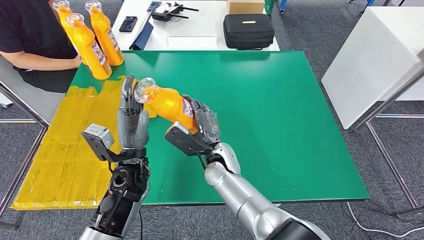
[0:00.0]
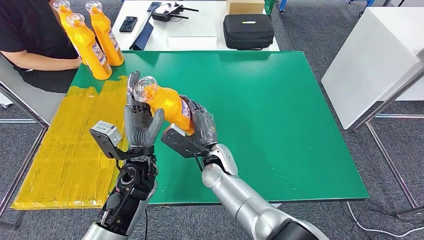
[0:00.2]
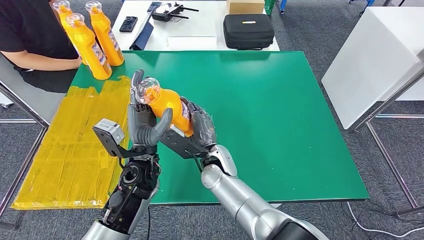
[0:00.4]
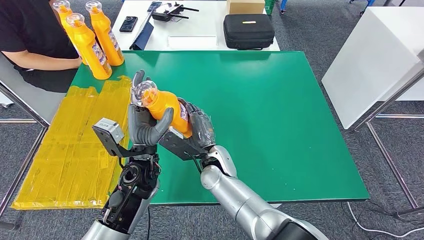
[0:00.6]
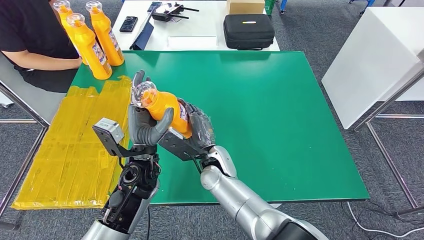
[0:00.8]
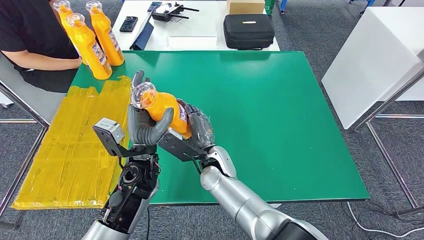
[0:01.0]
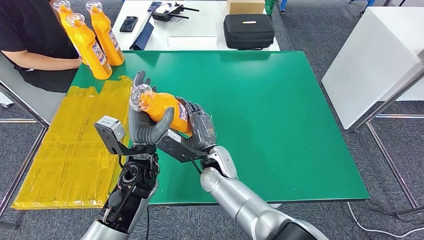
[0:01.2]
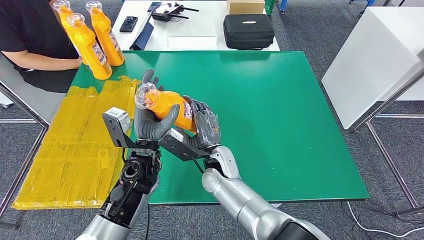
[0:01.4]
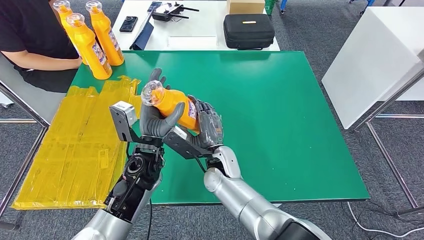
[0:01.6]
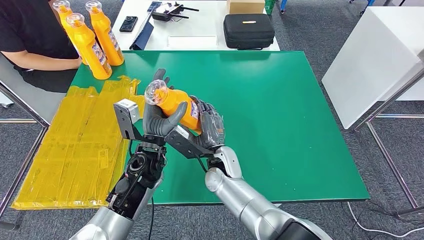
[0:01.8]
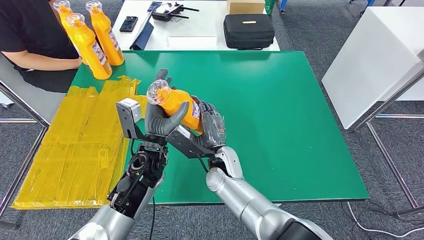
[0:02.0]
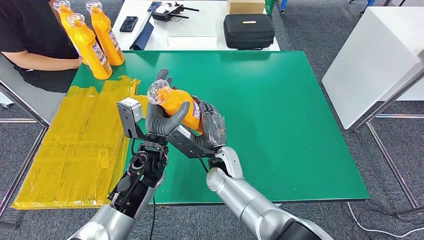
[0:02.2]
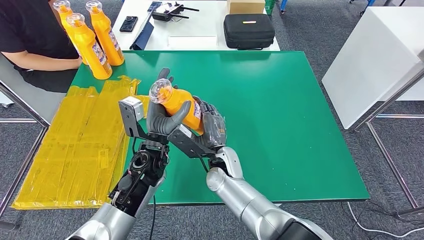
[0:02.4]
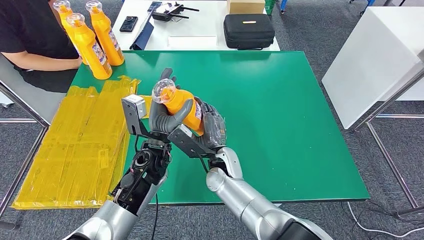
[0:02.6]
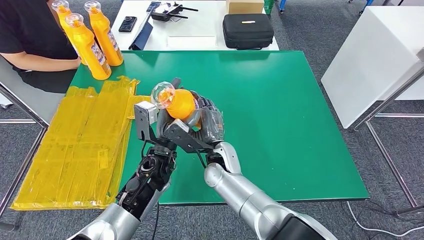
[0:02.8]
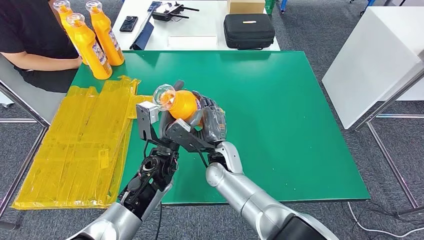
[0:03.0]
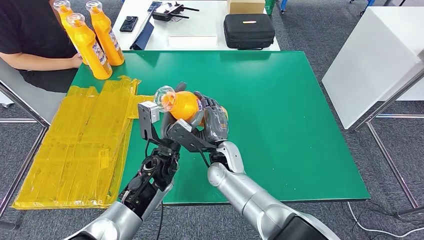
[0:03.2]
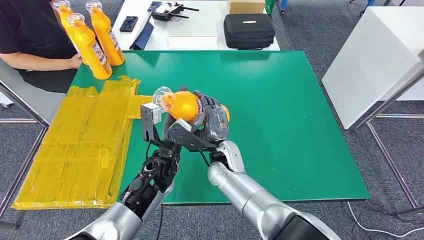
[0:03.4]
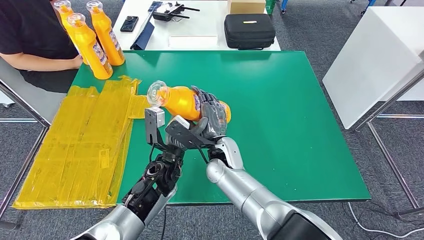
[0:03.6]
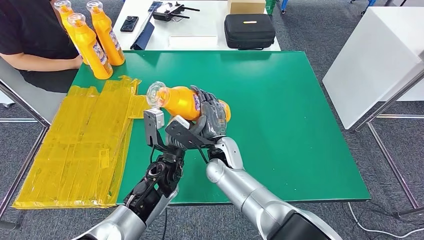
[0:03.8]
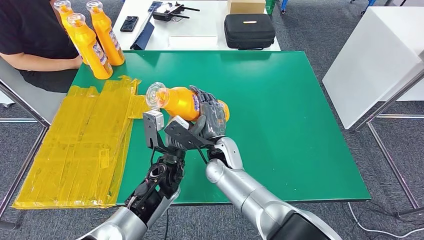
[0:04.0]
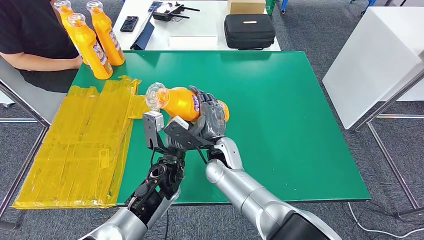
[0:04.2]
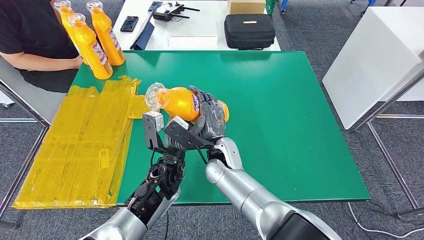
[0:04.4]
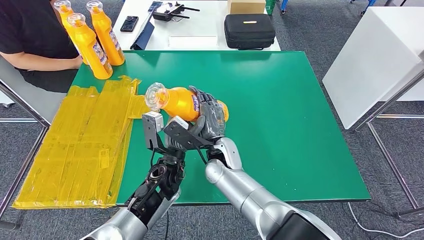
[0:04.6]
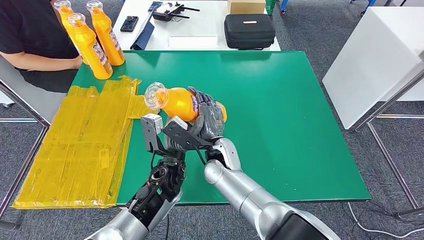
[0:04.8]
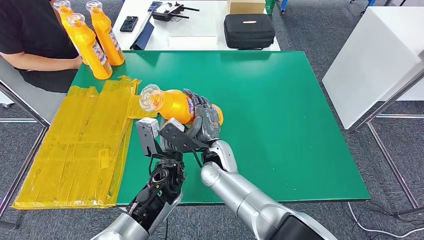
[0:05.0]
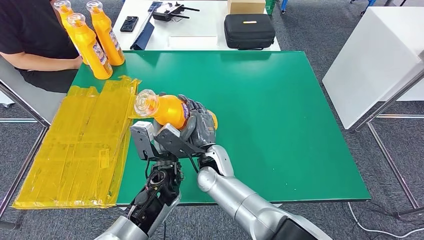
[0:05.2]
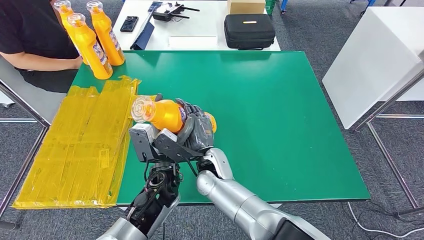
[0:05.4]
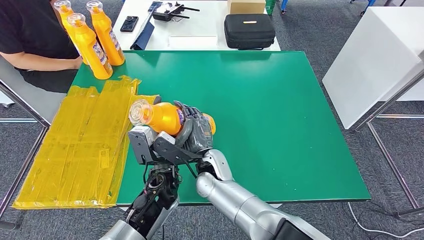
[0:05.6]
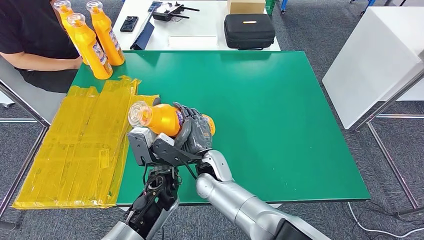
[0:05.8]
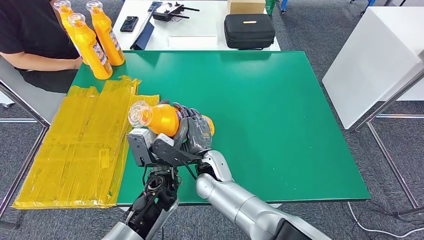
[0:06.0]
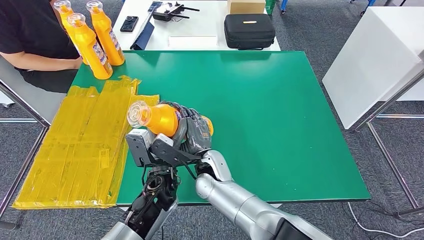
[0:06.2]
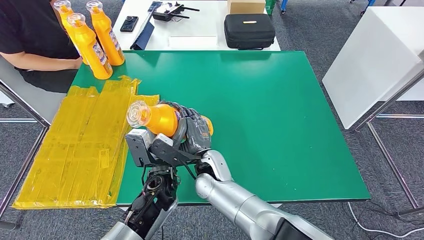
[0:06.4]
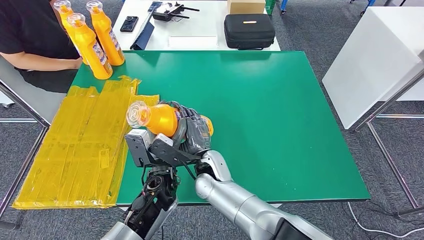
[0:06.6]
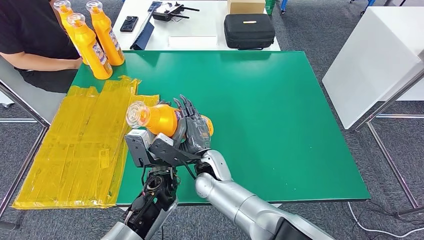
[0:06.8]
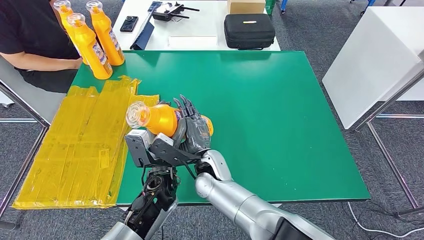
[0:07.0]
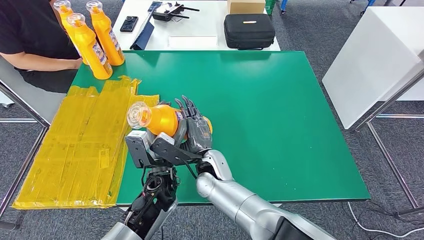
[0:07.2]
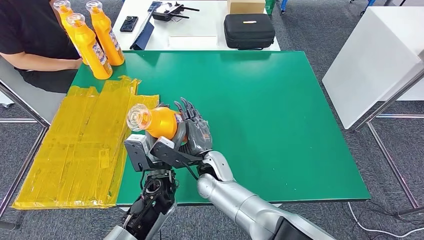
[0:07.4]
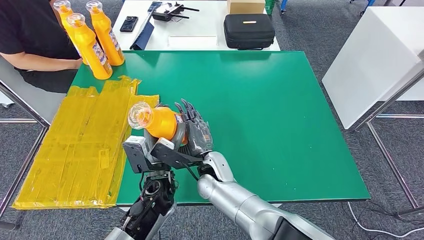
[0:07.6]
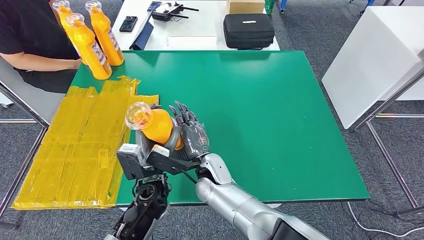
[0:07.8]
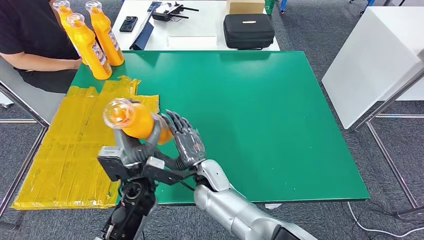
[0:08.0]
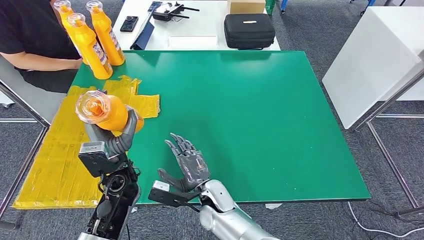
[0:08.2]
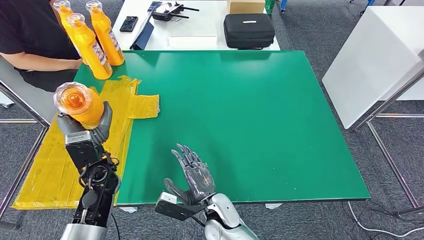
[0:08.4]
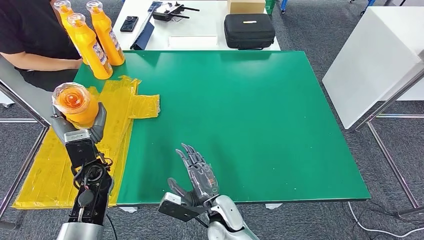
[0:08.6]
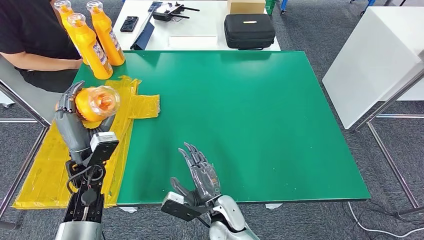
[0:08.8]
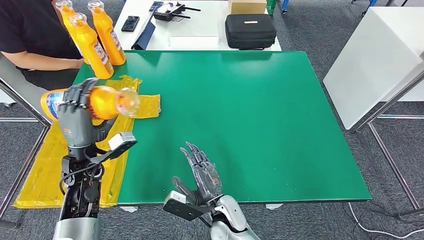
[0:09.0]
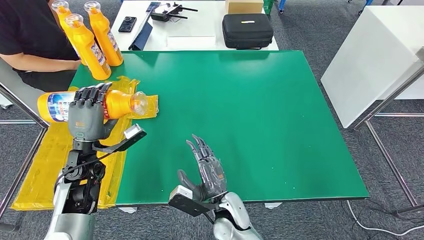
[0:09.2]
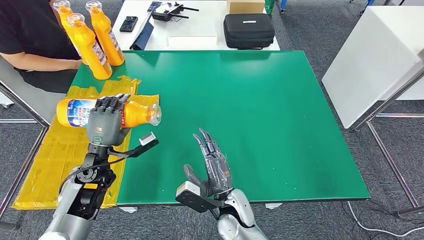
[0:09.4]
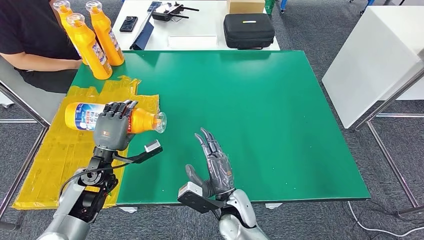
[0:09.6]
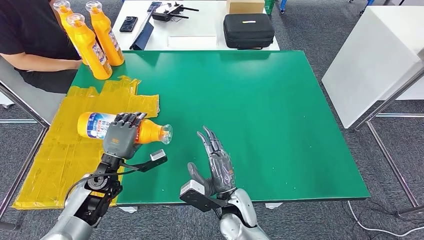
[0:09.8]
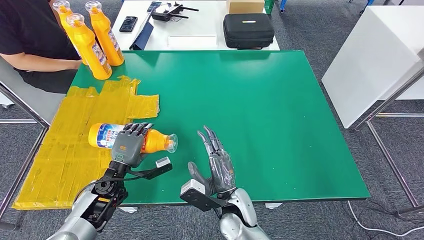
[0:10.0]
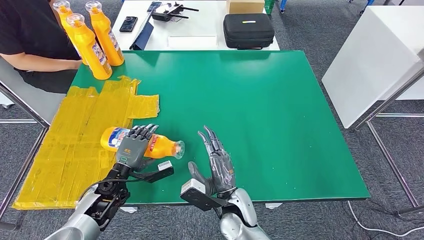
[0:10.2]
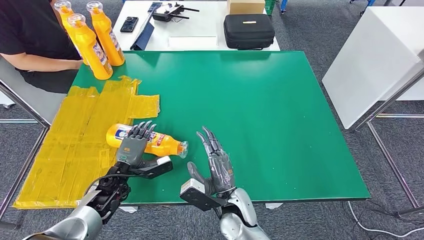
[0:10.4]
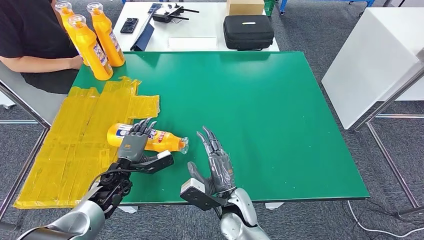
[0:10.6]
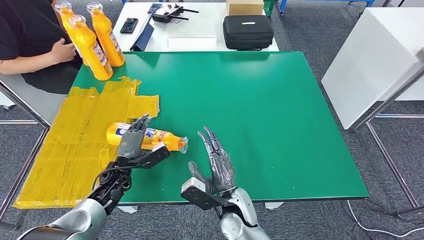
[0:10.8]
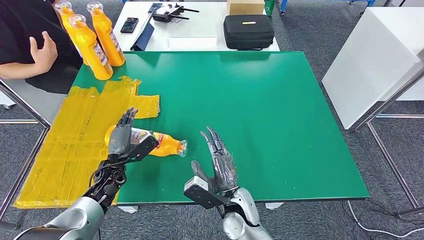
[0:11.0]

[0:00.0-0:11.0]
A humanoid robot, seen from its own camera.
Step, 0:00.0 to 0:11.0: Flip the fast-moving consumer goods bottle to the front side.
0:00.0 to 0:01.6: The hands stay close to where they were, moving slightly.
0:01.6 to 0:03.2: There are only small adjustments of the hands.
0:03.2 to 0:04.8: There are only small adjustments of the hands.
0:04.8 to 0:06.2: The hands stay close to where they were, moving slightly.
0:06.2 to 0:07.8: The hands make only small movements.
0:07.8 to 0:09.4: The right hand moves backward and to the right, roughly 10 cm. Meanwhile the left hand goes roughly 15 cm to the left.
0:09.4 to 0:11.0: The left hand heads downward, covering roughly 10 cm.

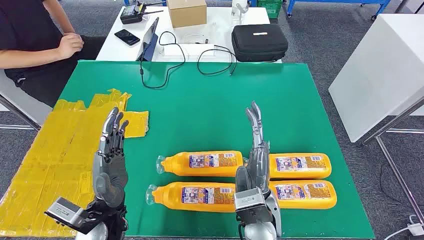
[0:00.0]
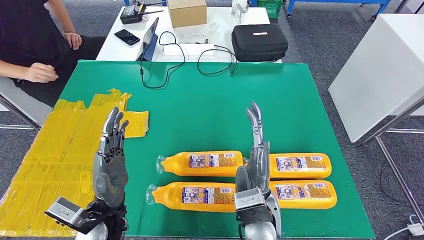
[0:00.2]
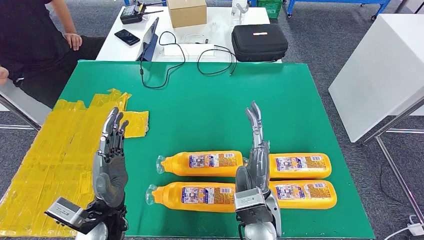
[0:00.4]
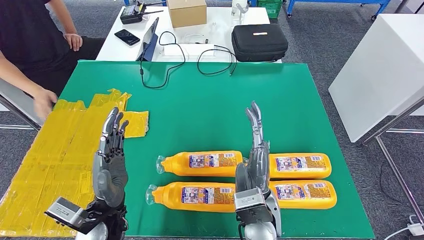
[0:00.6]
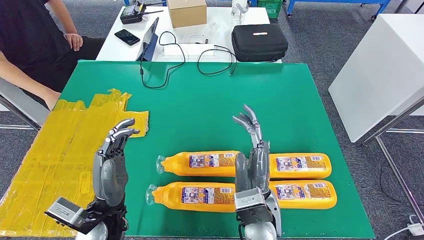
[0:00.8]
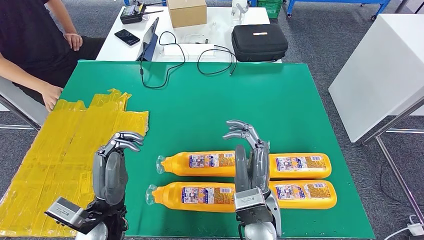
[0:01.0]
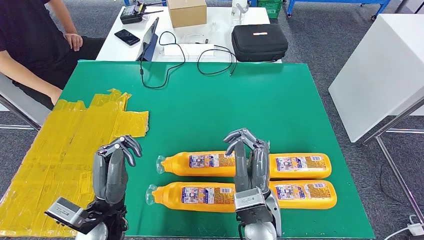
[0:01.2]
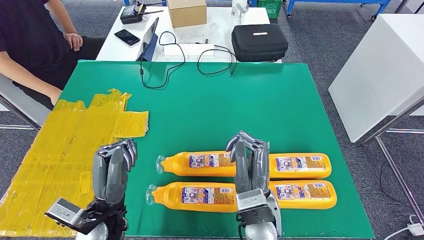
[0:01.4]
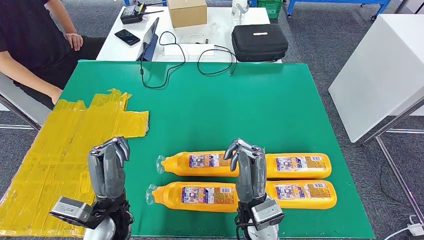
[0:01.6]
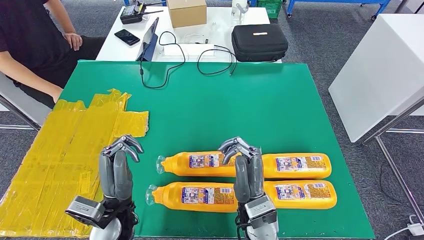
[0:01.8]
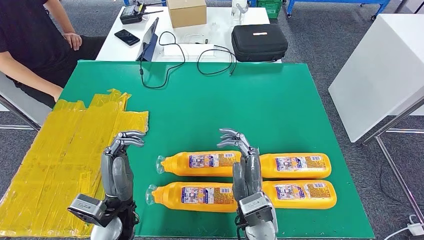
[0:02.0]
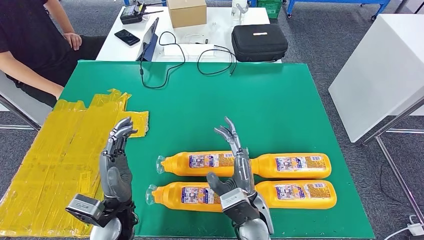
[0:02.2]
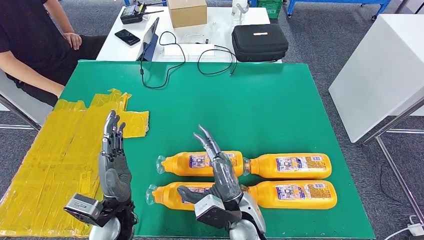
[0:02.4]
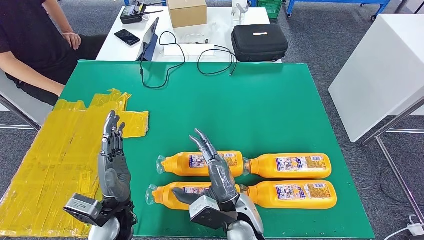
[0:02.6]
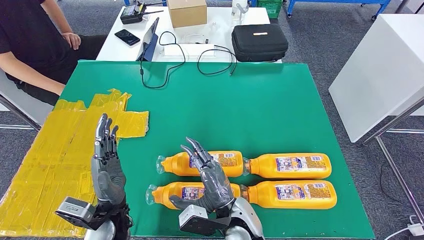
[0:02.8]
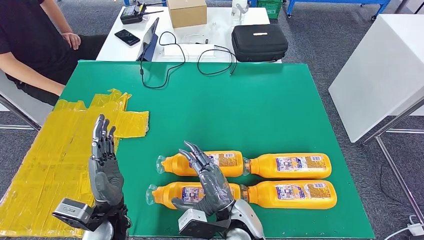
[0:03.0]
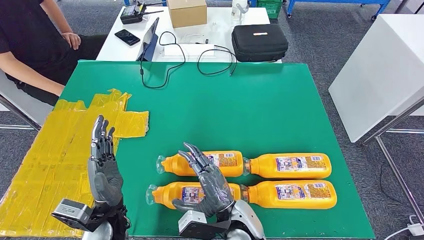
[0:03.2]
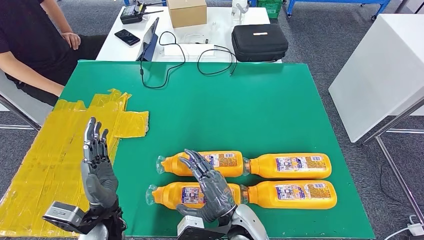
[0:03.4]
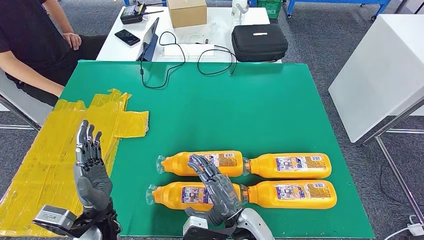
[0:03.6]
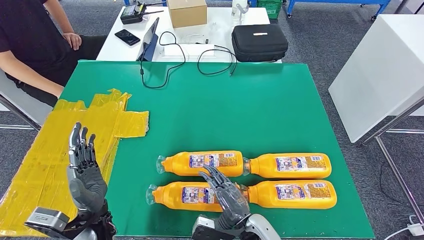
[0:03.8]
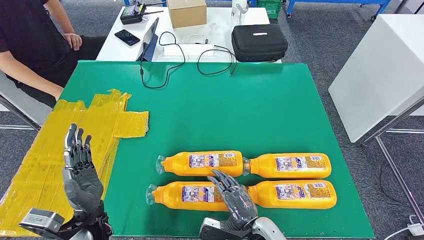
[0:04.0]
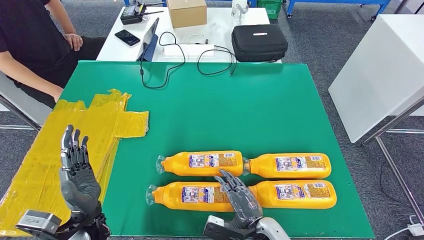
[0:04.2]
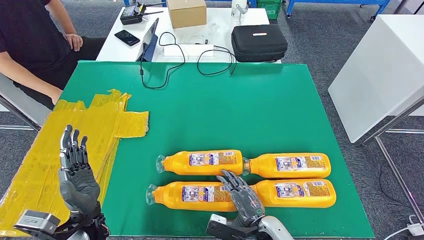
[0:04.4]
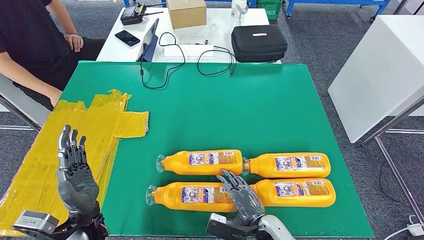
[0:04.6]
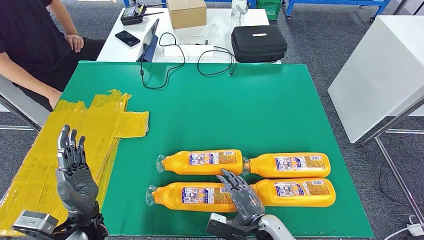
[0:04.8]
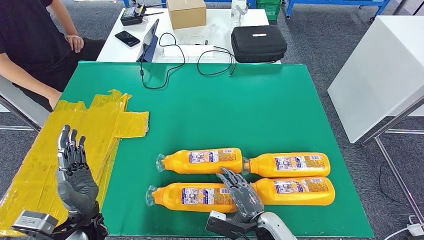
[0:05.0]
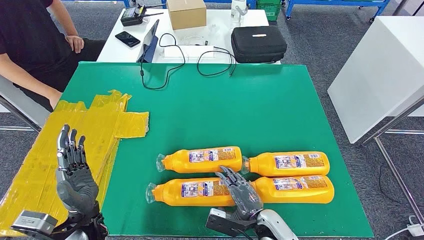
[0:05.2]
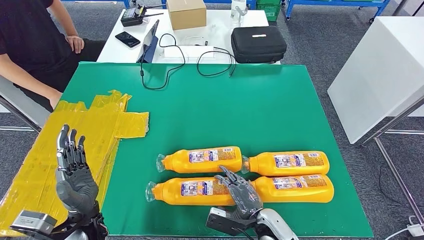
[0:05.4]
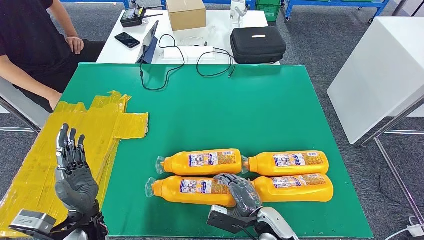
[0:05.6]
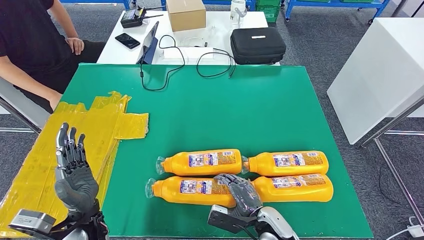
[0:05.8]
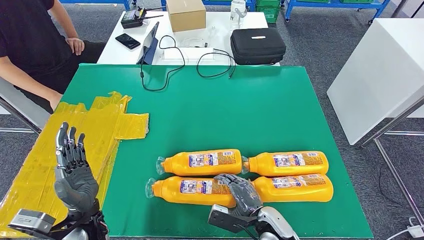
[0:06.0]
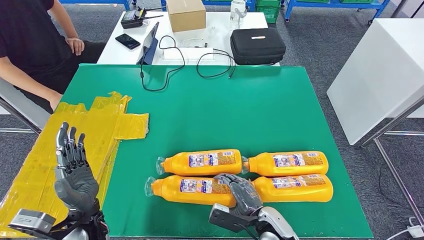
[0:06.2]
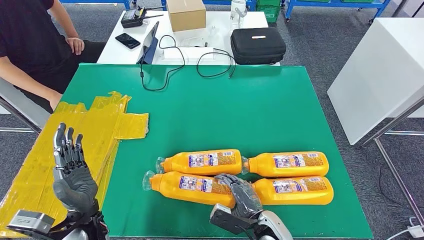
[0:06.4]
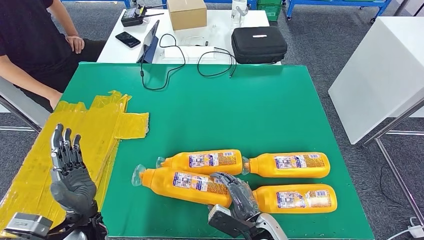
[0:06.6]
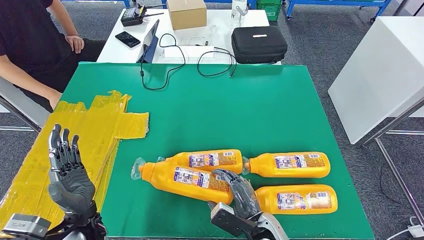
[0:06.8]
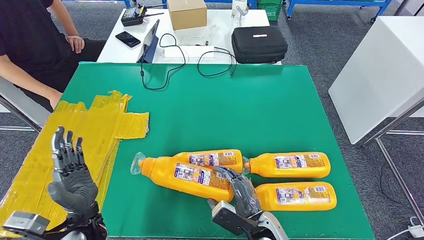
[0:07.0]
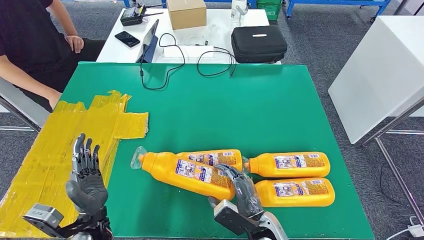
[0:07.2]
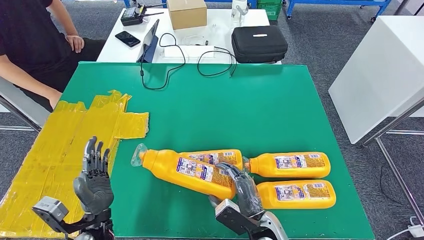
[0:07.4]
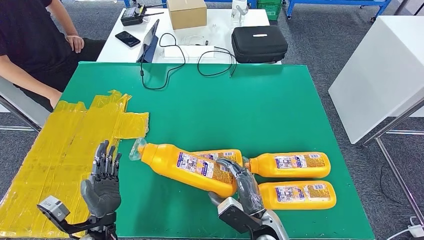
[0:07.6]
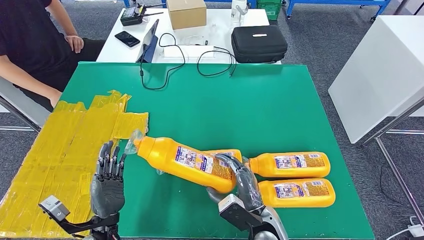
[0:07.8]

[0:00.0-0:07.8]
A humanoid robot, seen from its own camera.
0:01.6 to 0:03.2: The right hand changes place by some 5 cm.
0:03.2 to 0:04.6: The right hand travels to the right and downward by about 10 cm.
0:04.6 to 0:06.2: The hands stay close to where they were, moving slightly.
